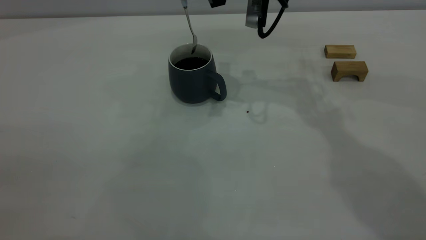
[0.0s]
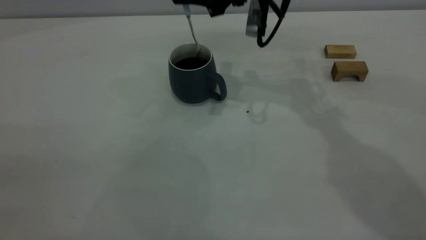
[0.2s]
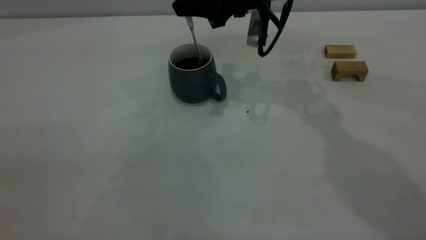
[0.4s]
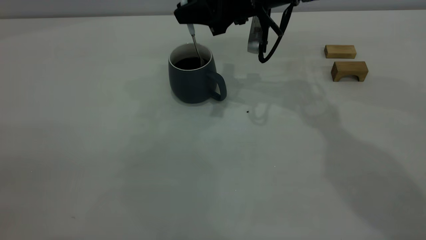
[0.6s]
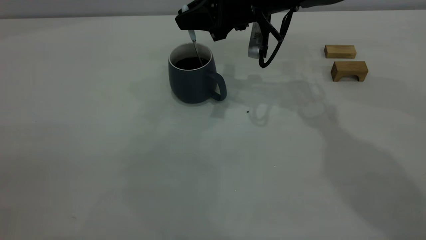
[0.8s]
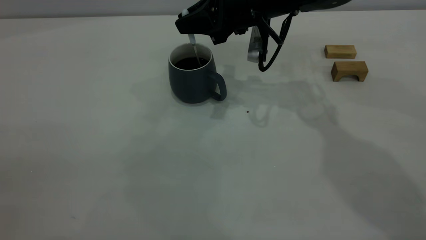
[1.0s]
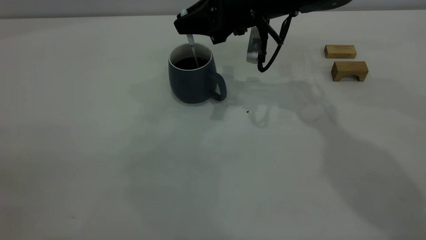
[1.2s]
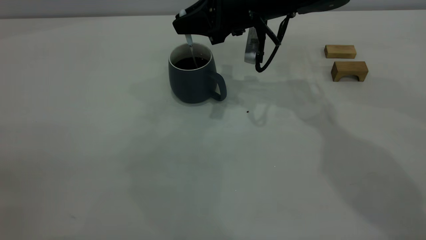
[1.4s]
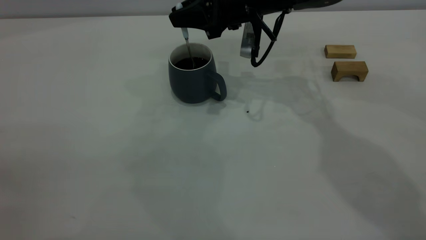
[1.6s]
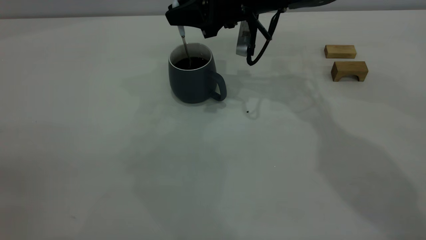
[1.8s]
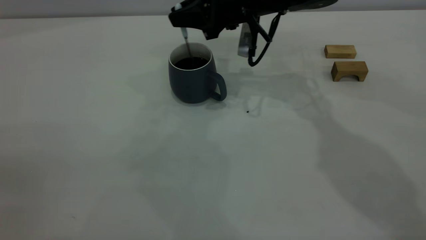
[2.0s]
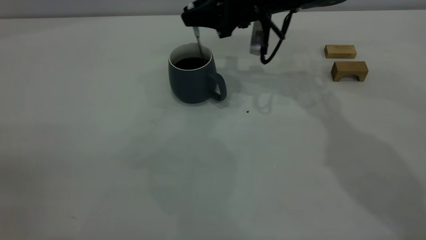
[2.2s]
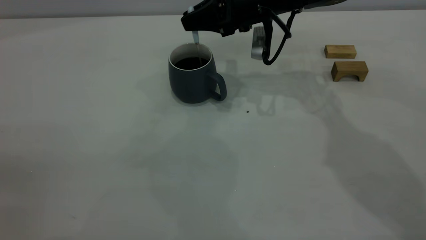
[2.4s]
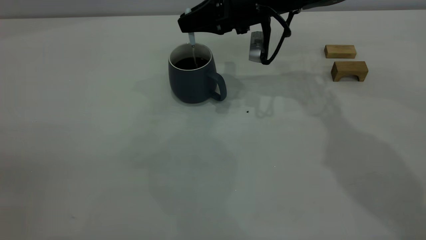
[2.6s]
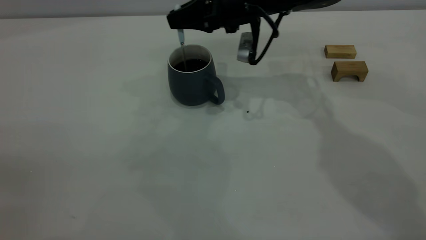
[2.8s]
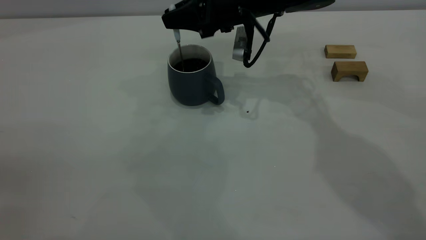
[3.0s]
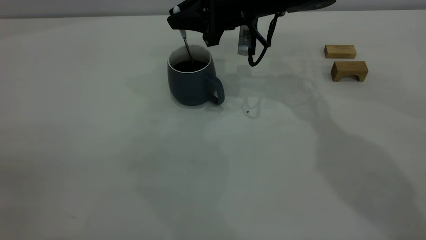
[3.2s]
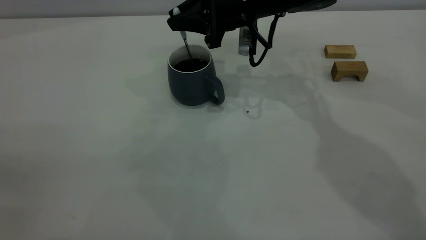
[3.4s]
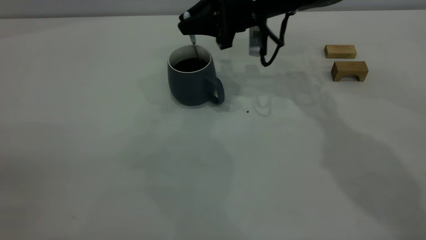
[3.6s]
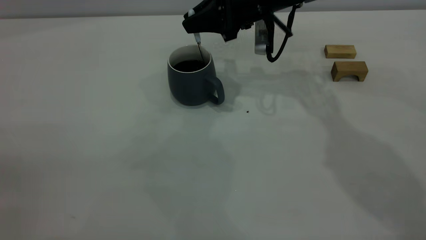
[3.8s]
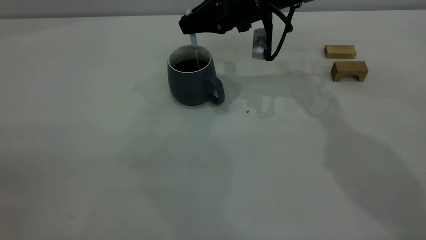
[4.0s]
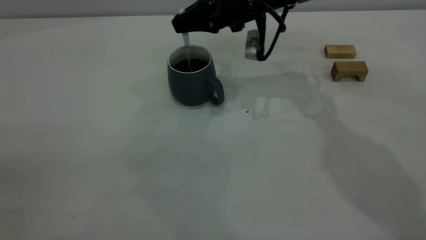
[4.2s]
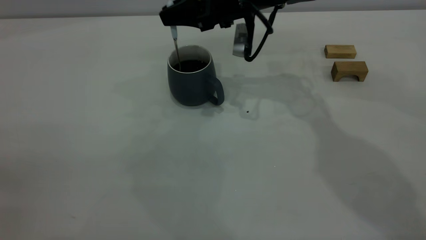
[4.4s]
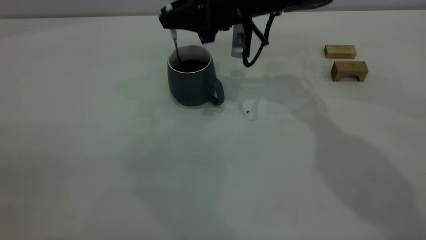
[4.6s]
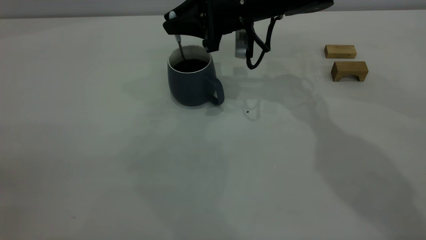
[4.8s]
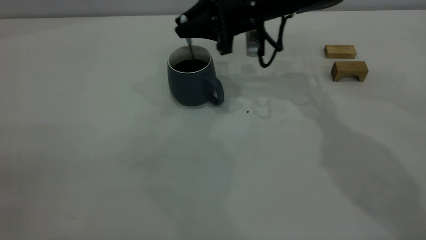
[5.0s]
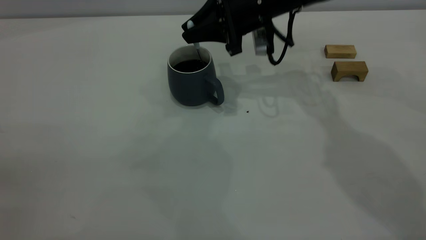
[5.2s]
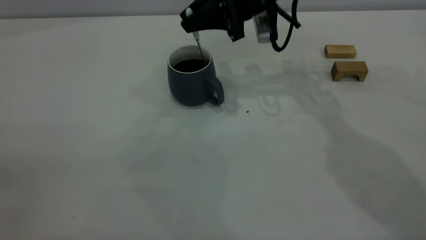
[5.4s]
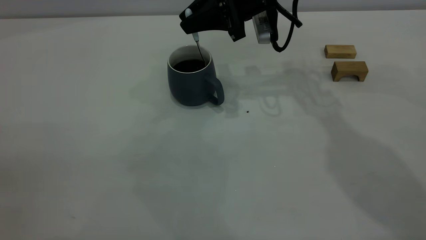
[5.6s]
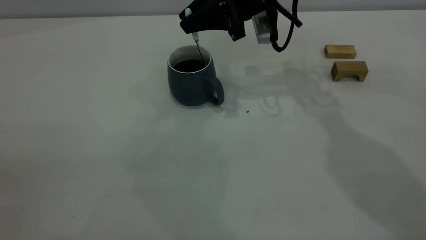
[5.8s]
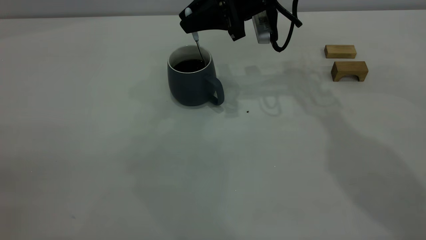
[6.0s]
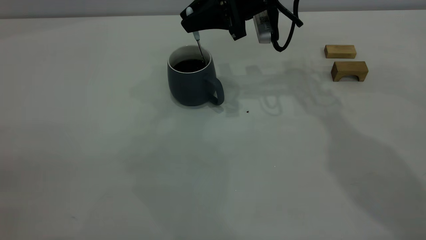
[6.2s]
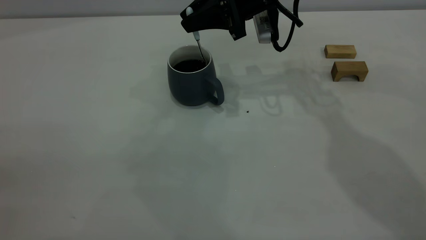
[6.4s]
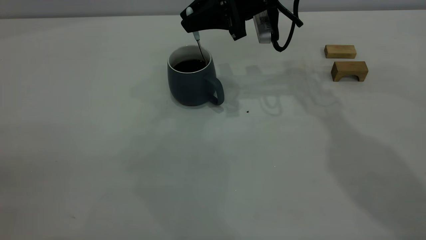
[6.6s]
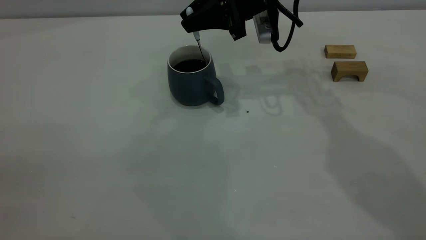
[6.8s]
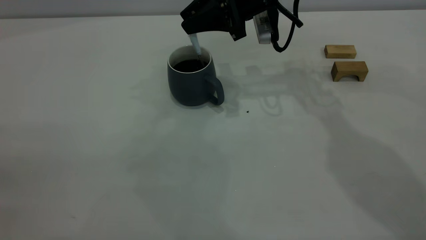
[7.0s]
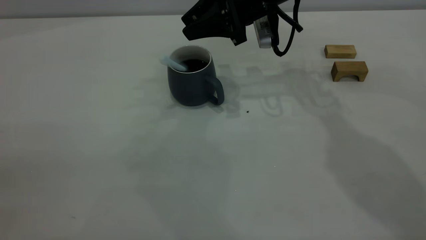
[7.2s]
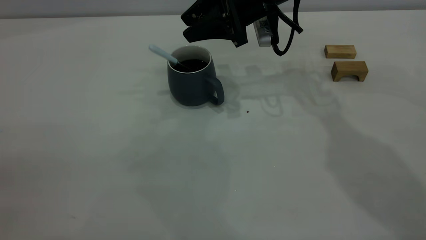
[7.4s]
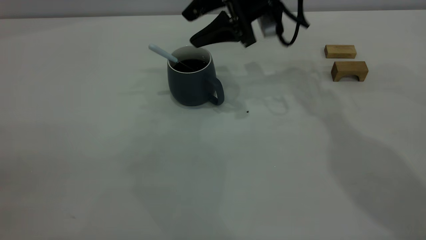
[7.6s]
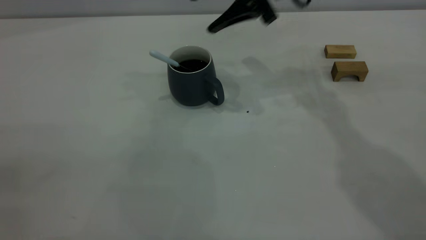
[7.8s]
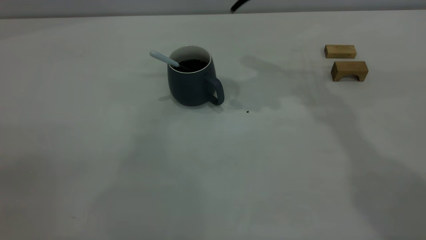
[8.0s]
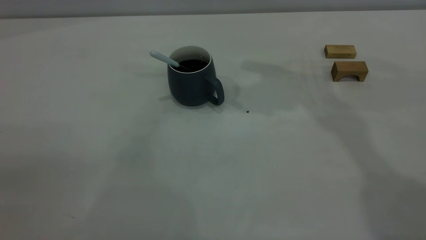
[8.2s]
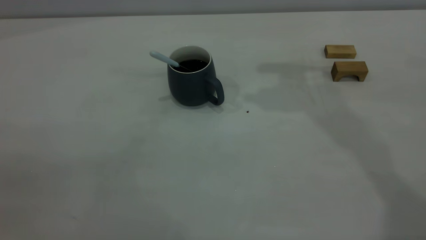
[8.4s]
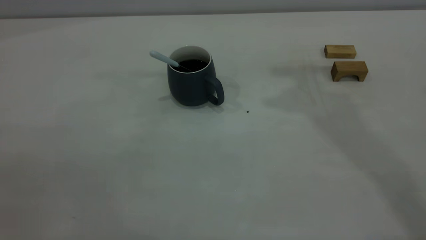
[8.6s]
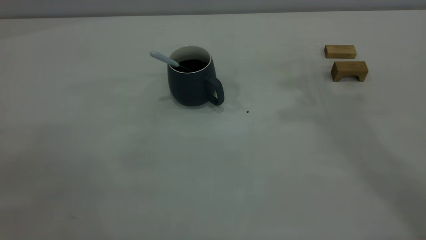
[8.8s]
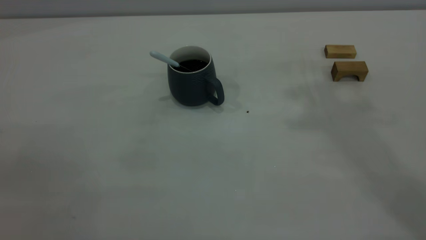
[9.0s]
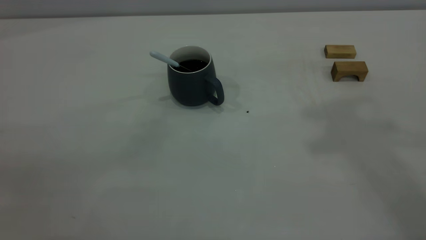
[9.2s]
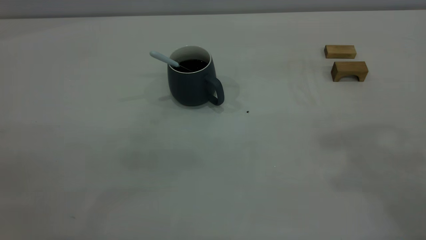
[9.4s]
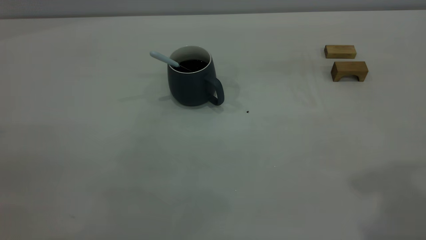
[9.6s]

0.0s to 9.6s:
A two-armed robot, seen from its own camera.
Step, 0.0s to 7.6s: Stir the coffee in the cup.
0.0s to 1.6s: The right gripper moves downward, some 5 cm.
1.6s to 3.2s: The grippers make only small movements.
4.8s to 6.4s: The grippers stay close to where they were, moving slightly.
6.4s to 8.0s: The right gripper goes some 10 cm upward, and opens its fingers.

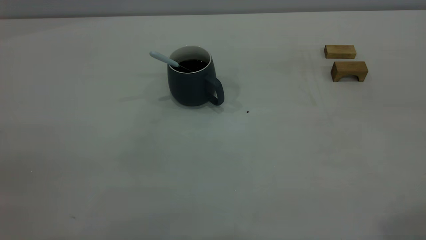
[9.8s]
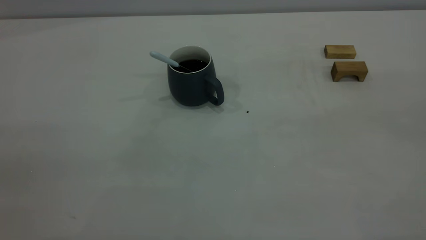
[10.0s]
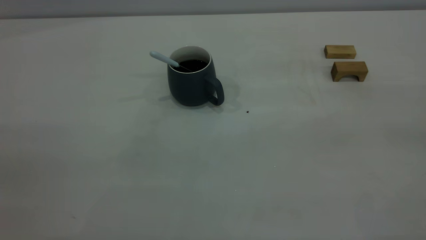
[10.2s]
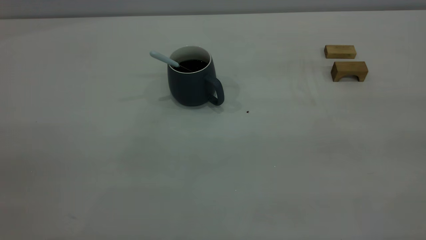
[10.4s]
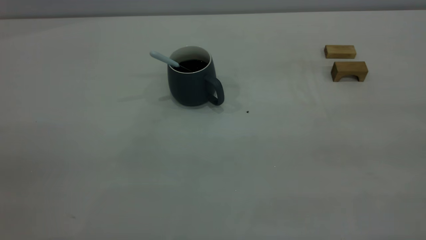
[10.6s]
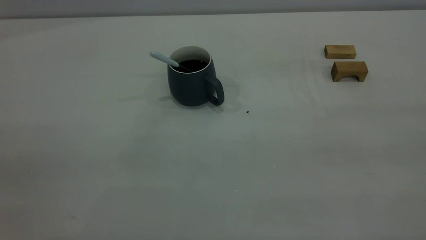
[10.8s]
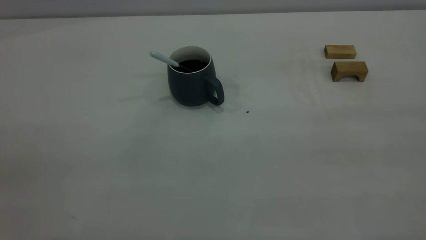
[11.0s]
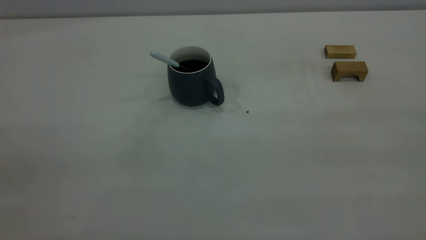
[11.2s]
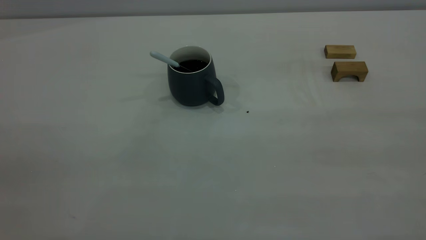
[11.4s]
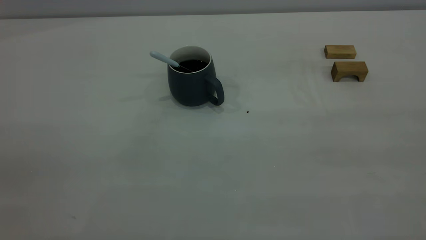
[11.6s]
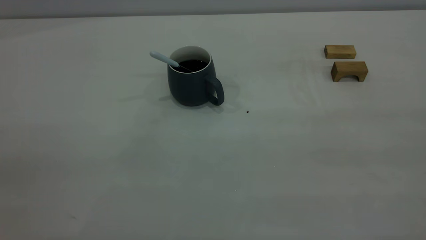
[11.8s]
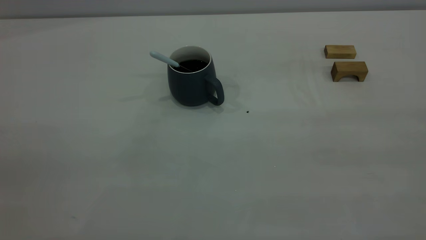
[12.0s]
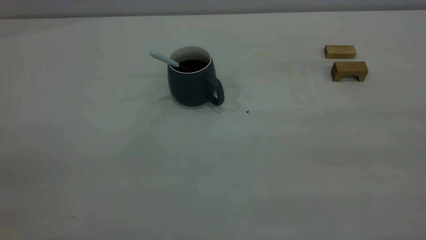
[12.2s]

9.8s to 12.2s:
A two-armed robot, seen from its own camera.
11.0s to 12.2s: The two grippers keep their place.

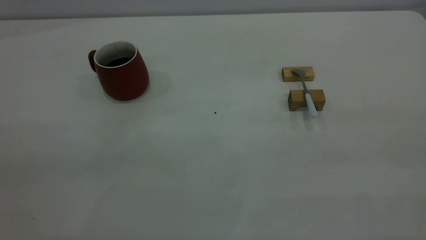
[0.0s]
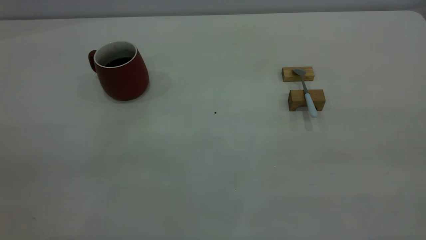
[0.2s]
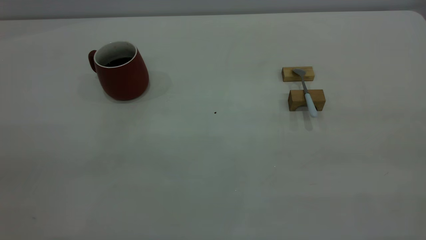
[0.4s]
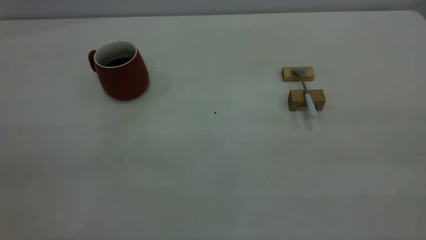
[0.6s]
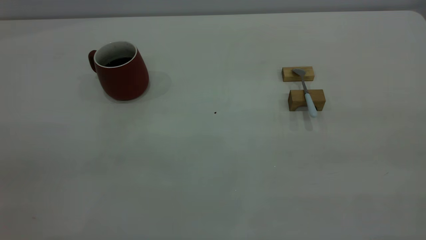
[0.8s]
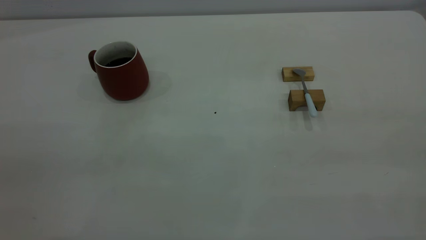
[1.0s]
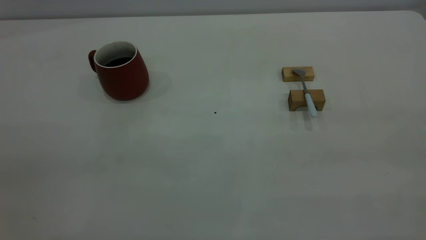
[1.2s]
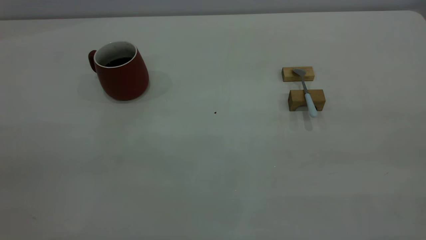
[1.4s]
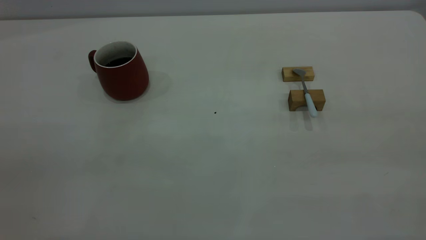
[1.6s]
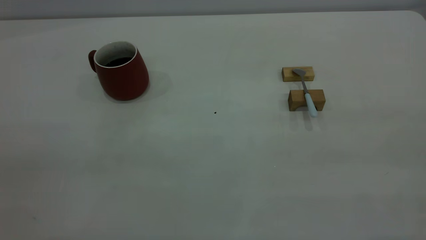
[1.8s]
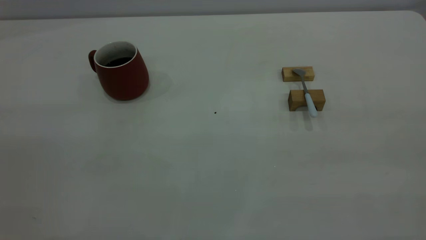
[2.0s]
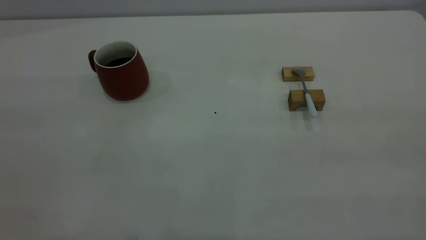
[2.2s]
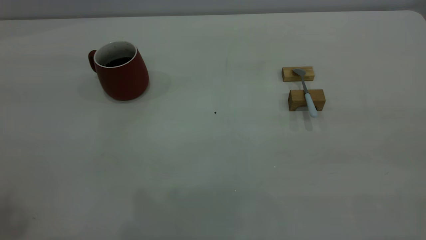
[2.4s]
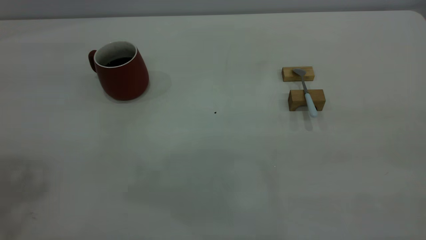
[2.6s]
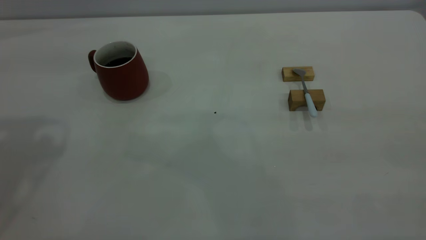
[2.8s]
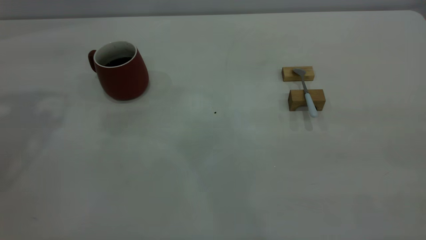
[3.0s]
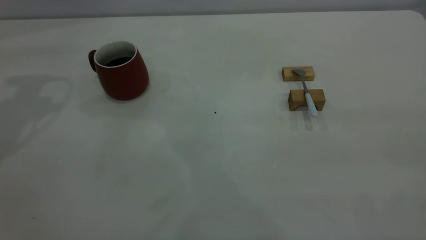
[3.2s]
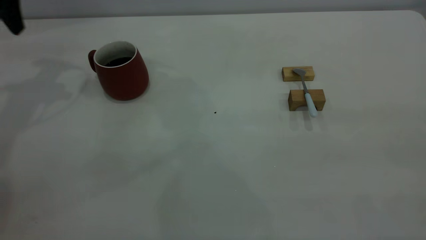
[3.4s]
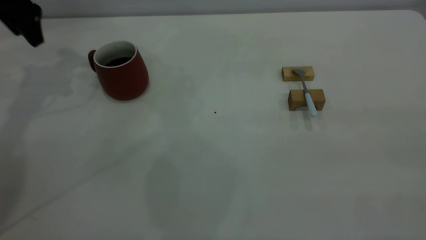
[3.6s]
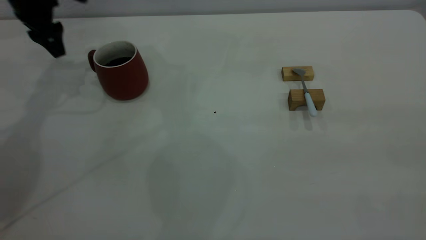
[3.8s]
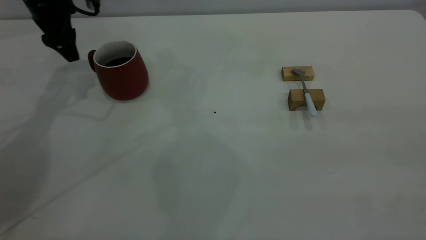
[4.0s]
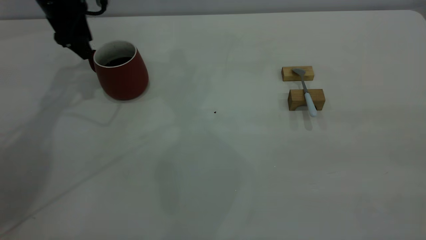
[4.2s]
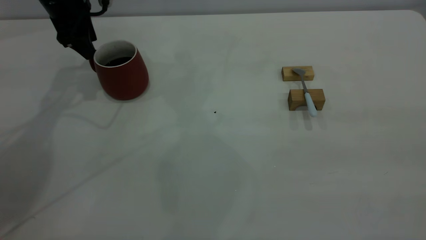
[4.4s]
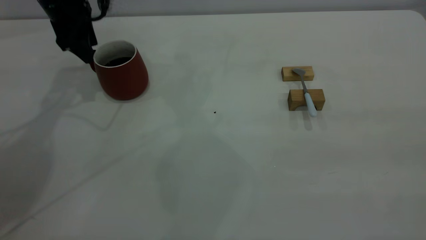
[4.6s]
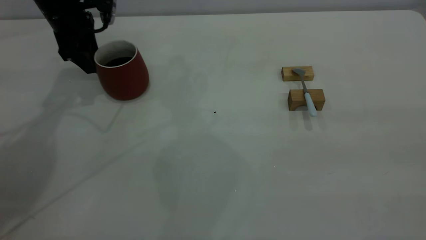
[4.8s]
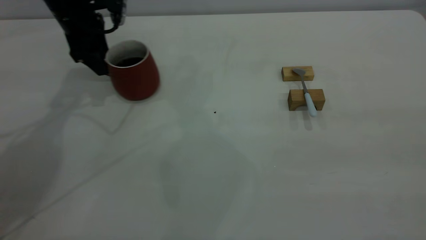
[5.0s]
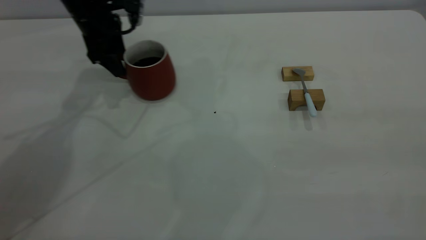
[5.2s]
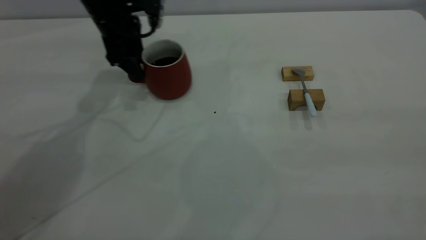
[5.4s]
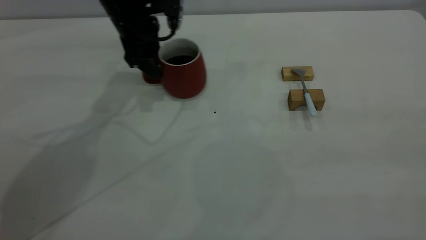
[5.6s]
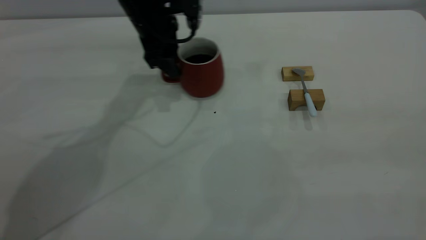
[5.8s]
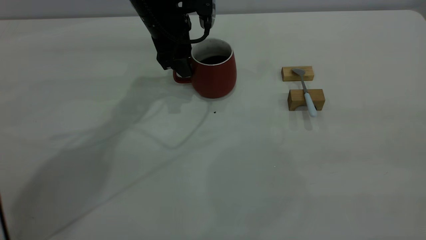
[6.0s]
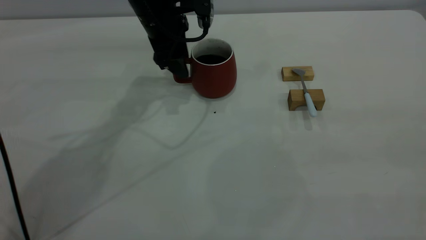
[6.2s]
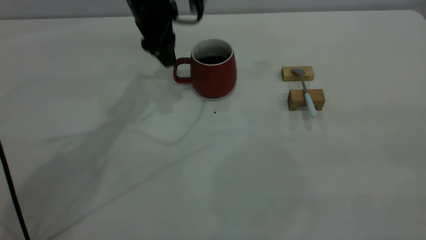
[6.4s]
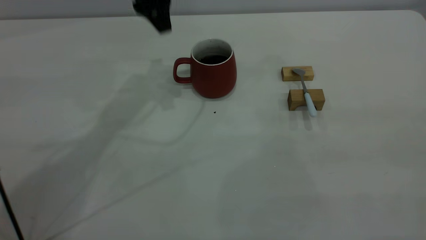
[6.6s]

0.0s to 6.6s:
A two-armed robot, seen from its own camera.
Step, 0.0s to 6.4s: Move the cup with coffee to the center of view.
0.0s to 1.6s: Both grippers stay about where they are.
3.2s to 5.0s: The left gripper travels downward, to the right and forward by about 20 cm.
5.0s to 6.6s: The left gripper is displaced to the right and upward by roughly 15 cm.
